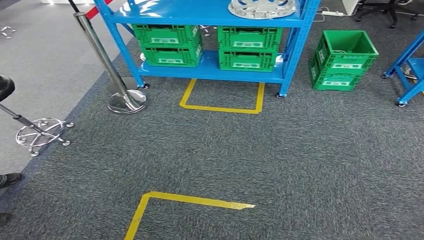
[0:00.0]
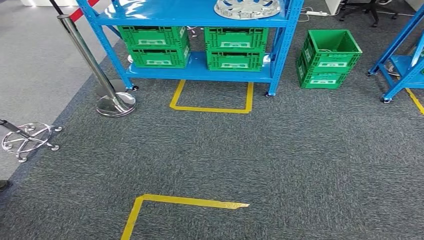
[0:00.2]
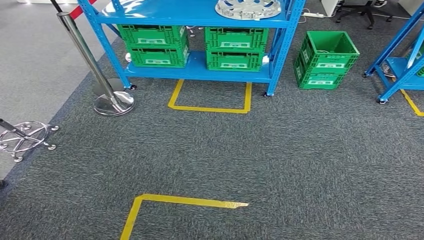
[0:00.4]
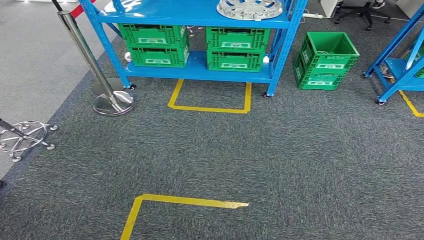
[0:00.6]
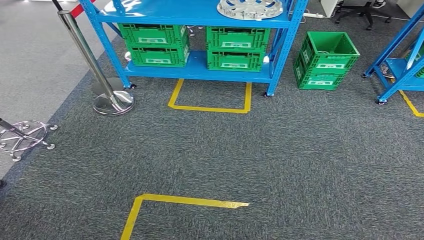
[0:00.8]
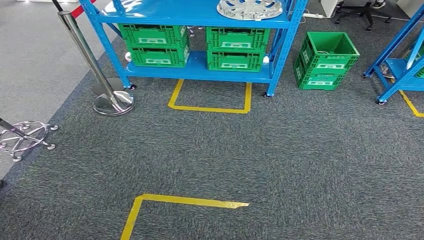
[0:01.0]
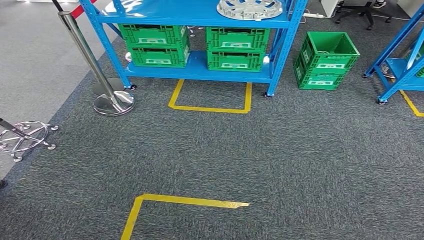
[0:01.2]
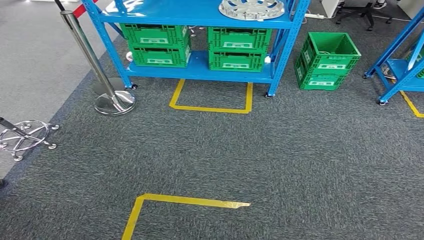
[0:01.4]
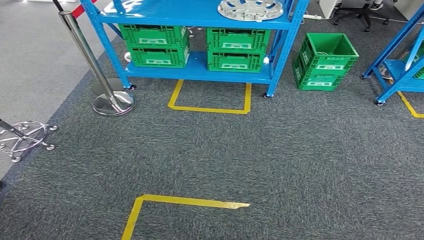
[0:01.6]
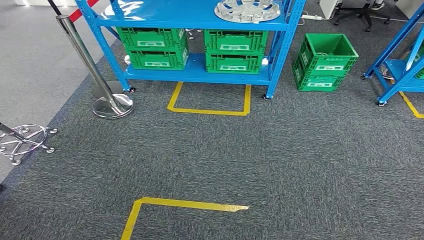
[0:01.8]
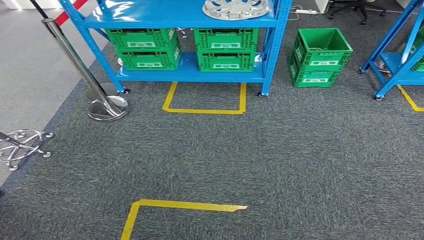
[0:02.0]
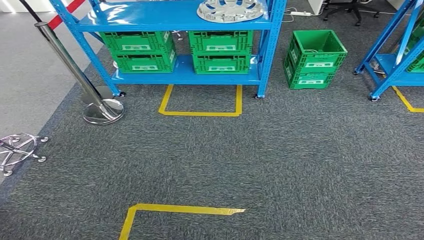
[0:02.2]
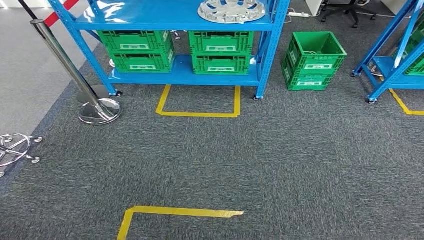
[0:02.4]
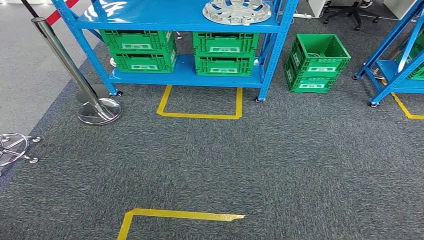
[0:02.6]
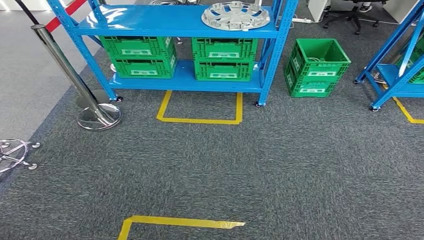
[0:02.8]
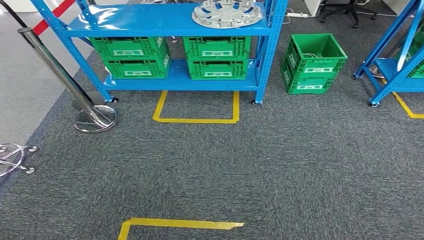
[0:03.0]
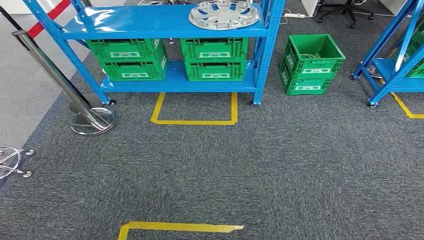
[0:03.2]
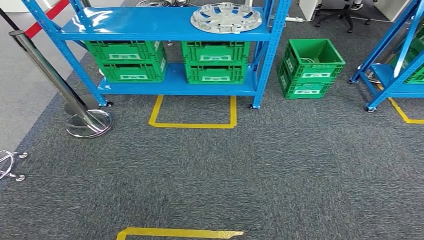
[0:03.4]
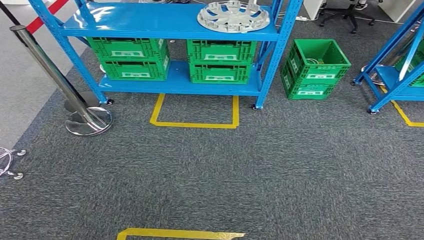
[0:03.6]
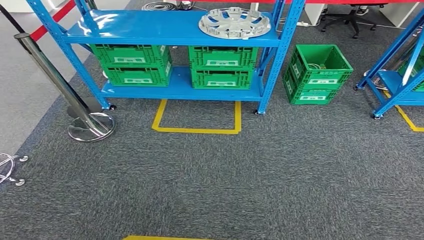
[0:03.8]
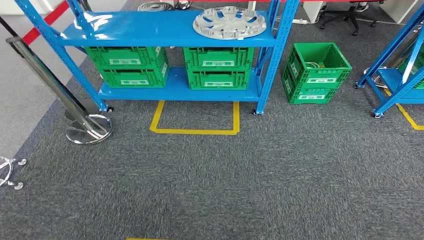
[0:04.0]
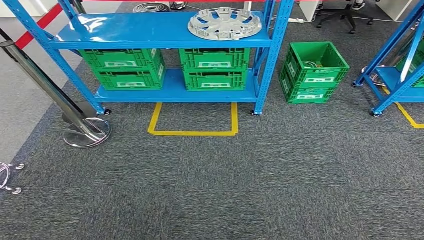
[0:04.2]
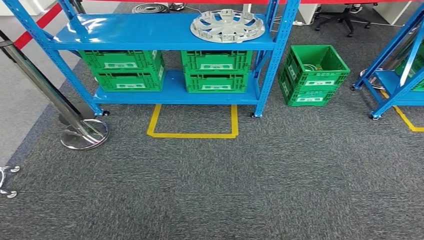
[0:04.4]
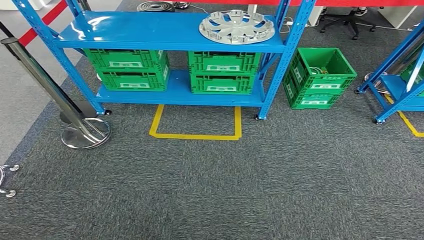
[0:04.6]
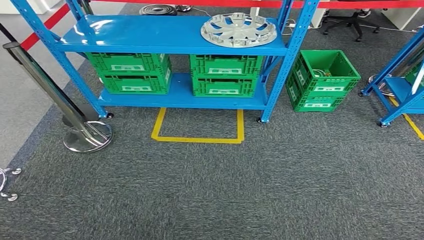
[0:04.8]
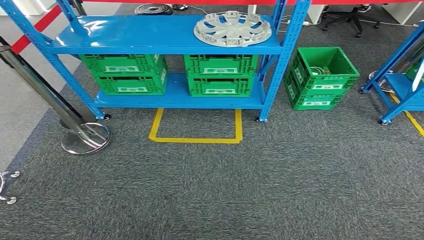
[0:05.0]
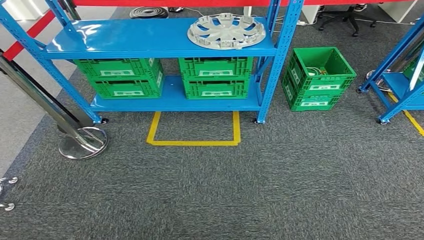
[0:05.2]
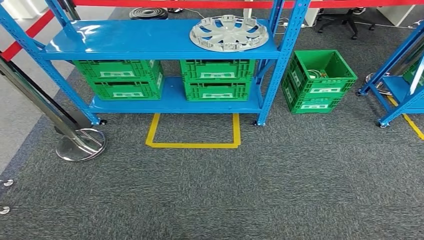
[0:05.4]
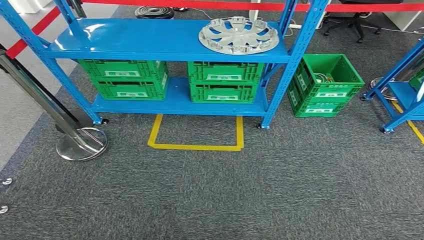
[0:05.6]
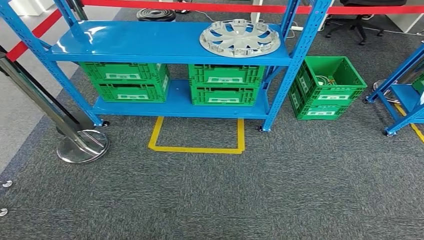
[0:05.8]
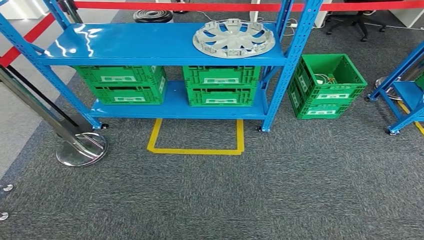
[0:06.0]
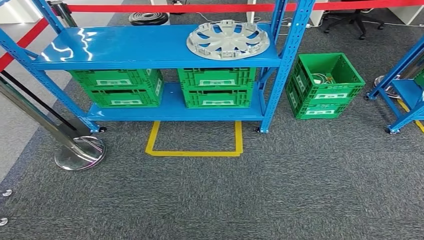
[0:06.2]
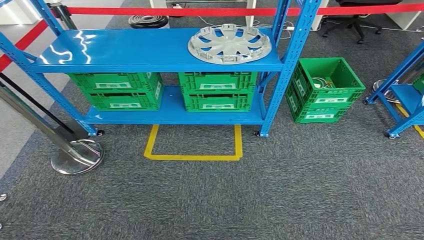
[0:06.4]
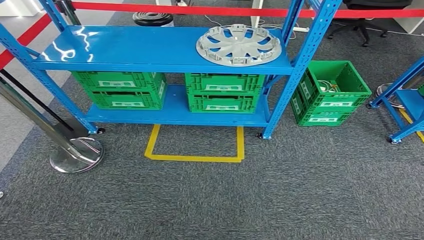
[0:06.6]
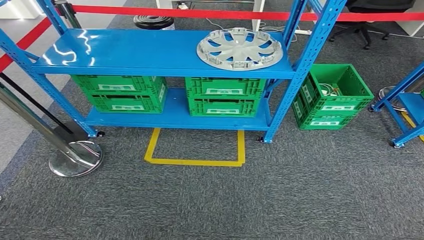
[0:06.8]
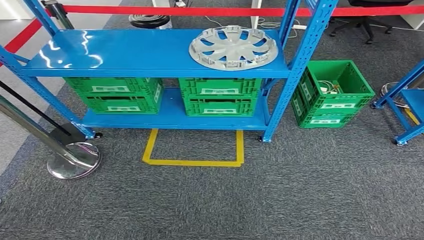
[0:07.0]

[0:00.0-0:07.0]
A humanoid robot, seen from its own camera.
Step, 0:00.0 to 0:06.8: Move to the initial position at the workbench.
